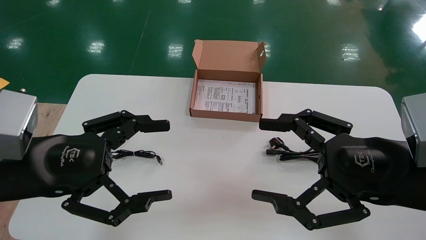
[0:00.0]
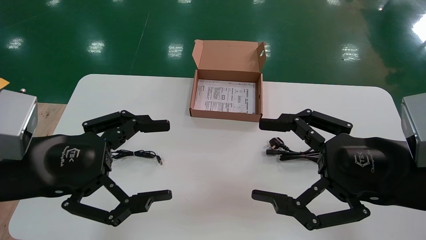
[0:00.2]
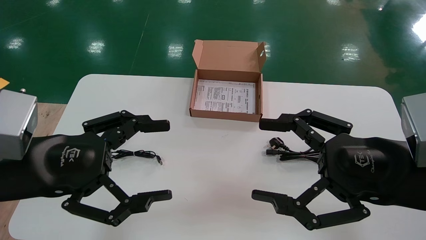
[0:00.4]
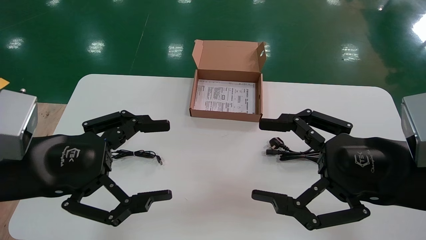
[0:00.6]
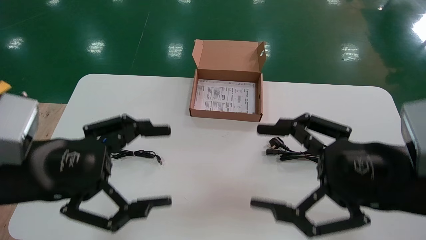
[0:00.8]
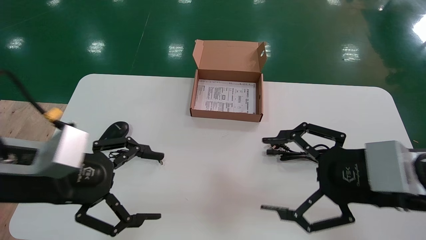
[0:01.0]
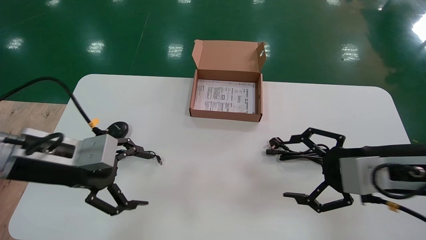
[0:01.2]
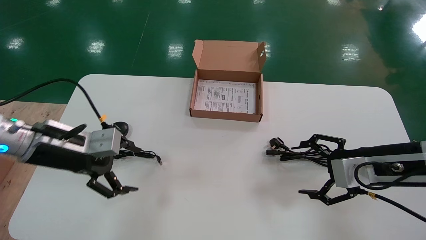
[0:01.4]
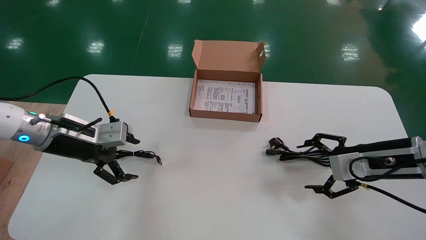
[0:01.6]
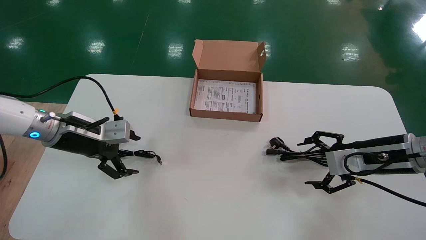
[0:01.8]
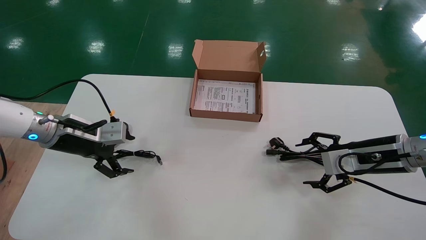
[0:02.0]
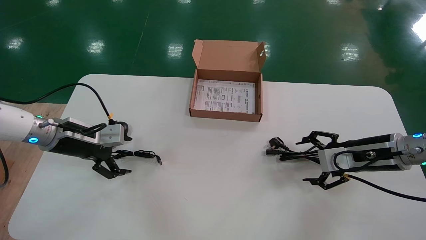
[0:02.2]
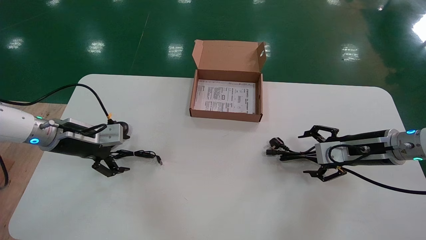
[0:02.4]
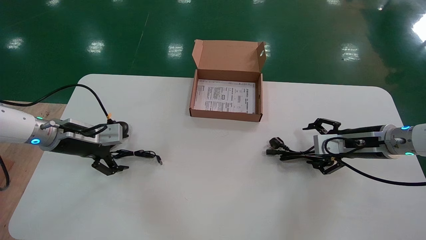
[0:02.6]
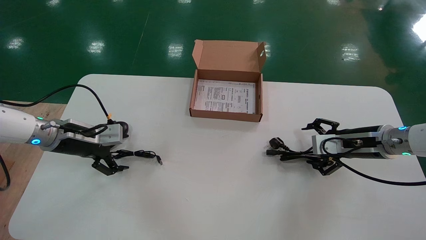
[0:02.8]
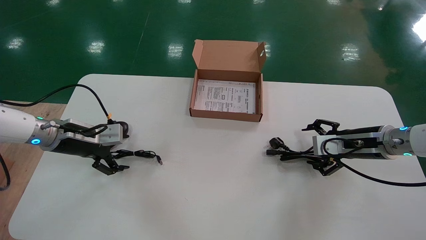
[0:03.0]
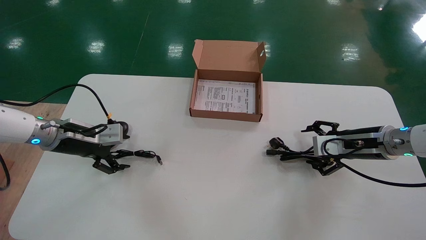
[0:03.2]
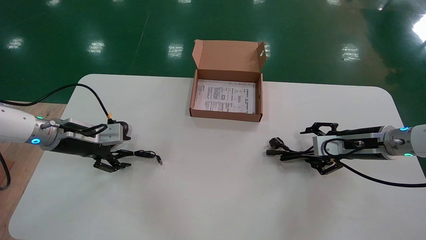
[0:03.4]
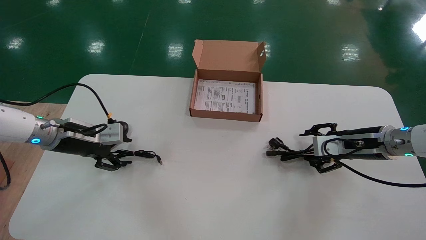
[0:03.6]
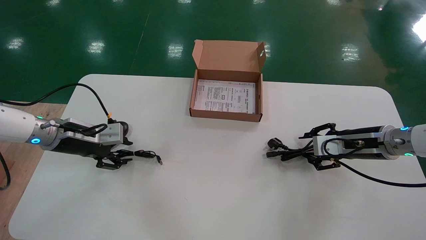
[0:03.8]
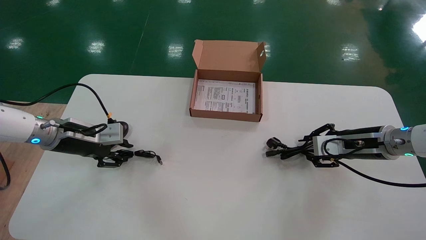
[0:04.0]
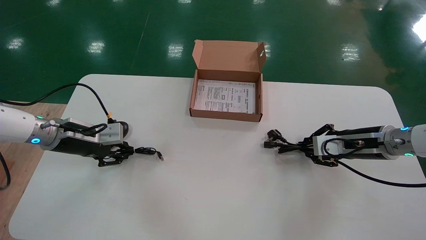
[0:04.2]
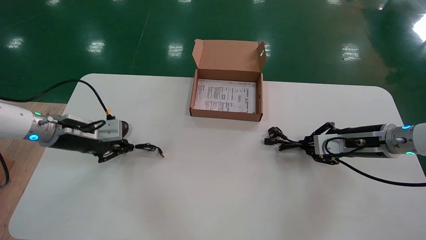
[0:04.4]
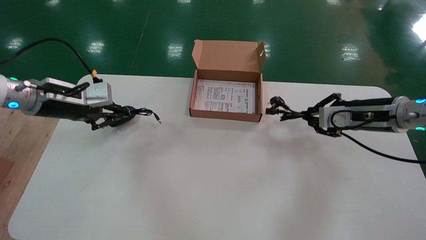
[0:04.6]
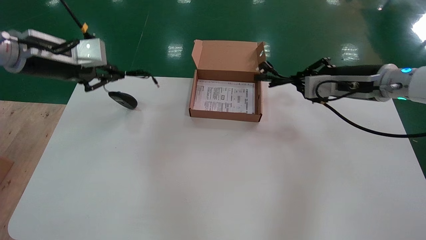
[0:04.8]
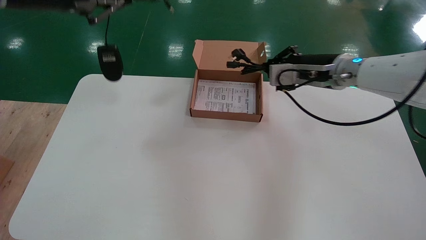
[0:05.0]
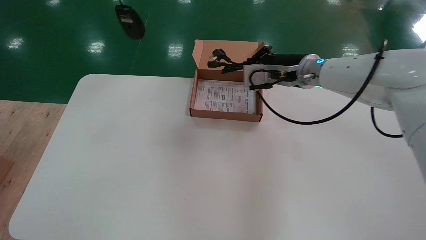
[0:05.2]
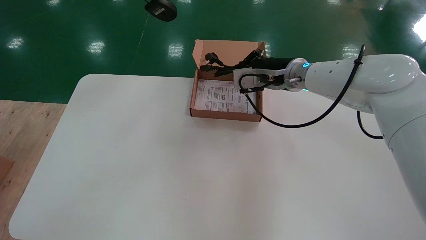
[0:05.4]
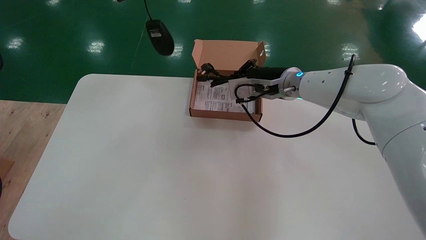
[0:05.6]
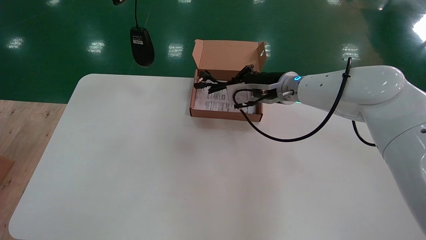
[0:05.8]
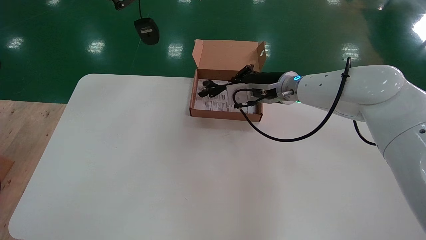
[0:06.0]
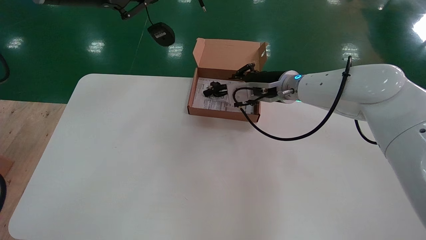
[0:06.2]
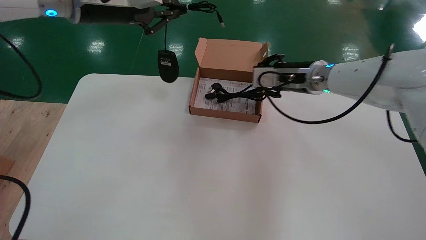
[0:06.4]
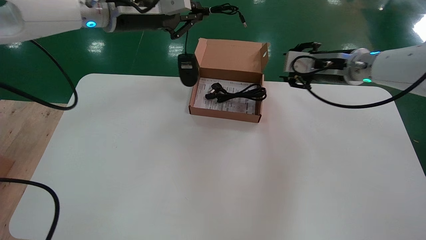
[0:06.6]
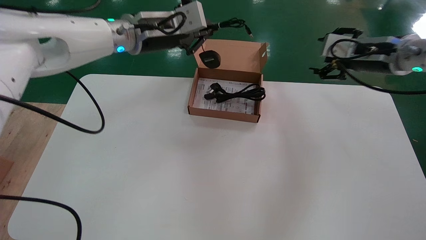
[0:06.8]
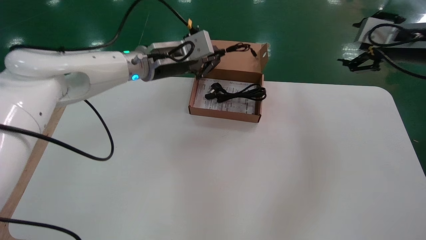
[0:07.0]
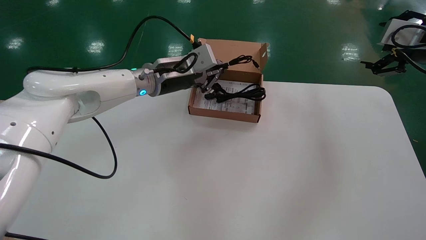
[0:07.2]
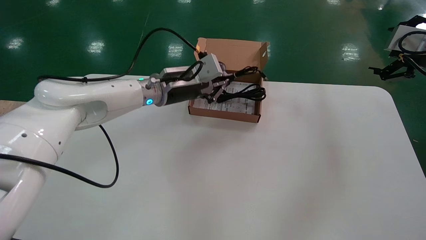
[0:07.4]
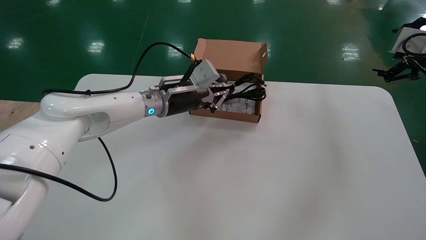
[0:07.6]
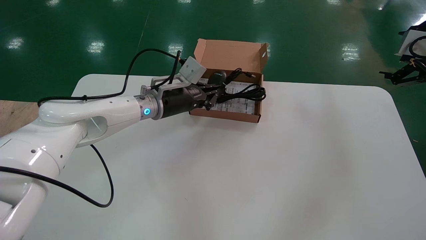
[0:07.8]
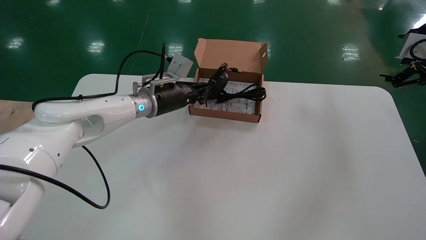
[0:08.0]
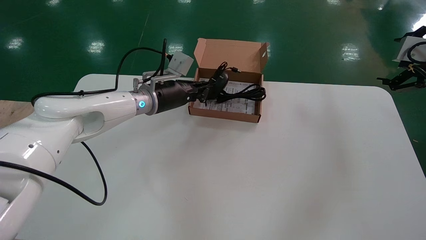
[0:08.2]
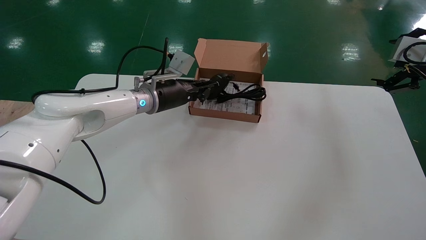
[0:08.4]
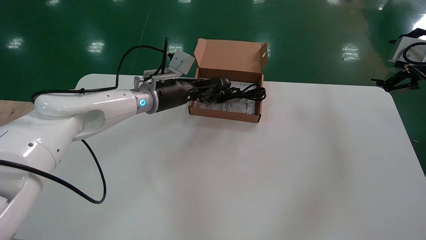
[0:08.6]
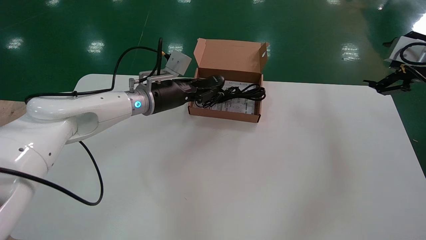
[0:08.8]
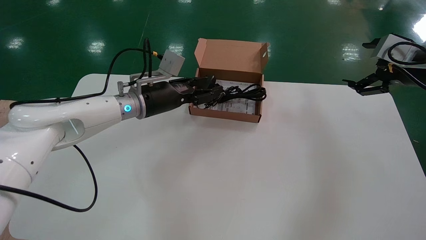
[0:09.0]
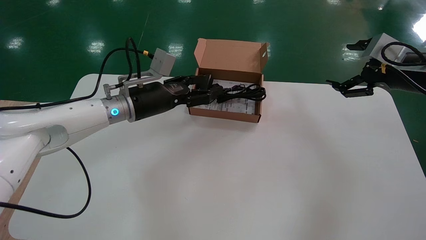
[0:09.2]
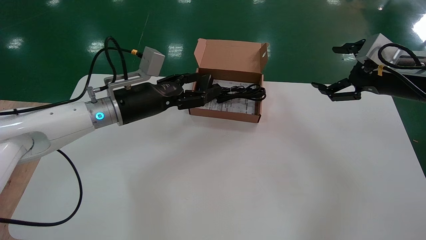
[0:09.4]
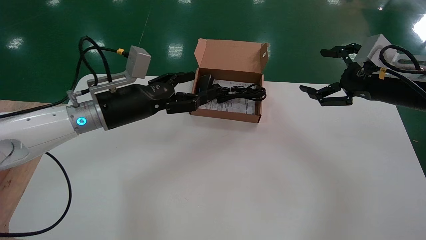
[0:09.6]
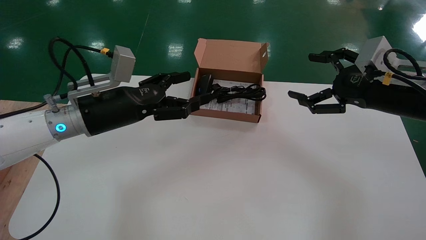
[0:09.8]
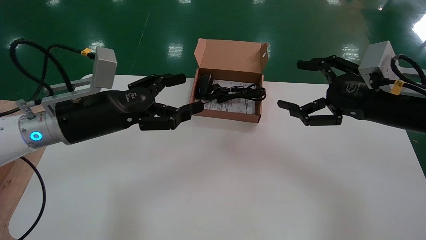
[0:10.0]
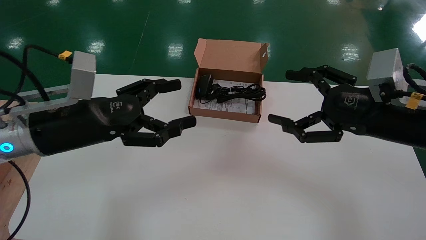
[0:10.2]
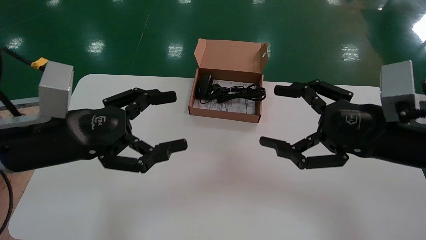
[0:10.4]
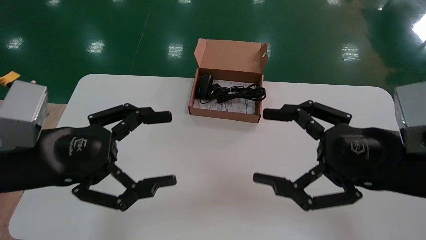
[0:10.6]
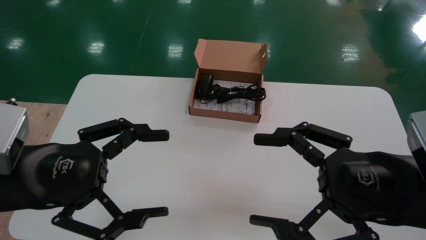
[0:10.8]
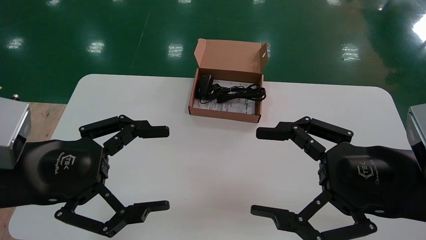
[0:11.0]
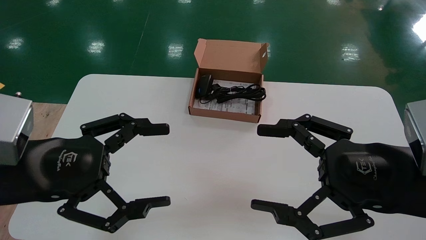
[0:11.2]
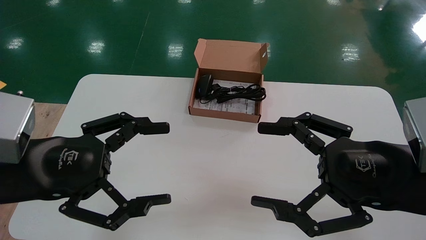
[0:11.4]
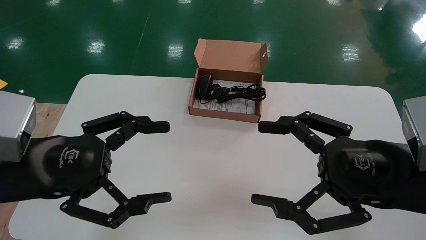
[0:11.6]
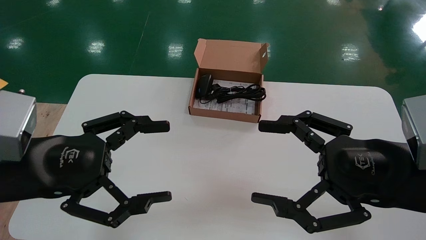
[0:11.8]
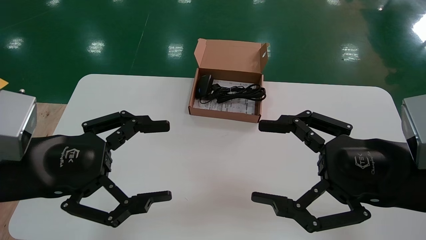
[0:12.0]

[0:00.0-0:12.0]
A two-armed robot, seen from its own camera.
Step, 0:01.2 to 0:04.4: Simultaneously pick up the mouse and power cord from the accessory packaging area.
Step, 0:04.6 to 0:09.0: Place the mouse and power cord into the box.
0:00.0 to 0:01.6: The left gripper travels forward by some 15 cm, while the right gripper is displaced forward, to the right and downward by some 15 cm.
0:01.6 to 0:03.0: The right gripper heads forward, covering roughly 10 cm. Meanwhile the left gripper changes place by roughly 5 cm.
0:03.0 to 0:04.4: The left gripper closes up; the right gripper closes its fingers.
0:04.4 to 0:06.0: The right gripper heads to the left, covering some 20 cm. The left gripper moves upward, some 25 cm.
0:06.0 to 0:07.6: The left gripper heads downward, to the right and forward, covering approximately 30 cm, while the right gripper goes some 30 cm to the right, and opens.
0:07.6 to 0:09.0: The left gripper opens.
0:09.0 to 0:10.4: The right gripper is displaced backward, to the left and downward by roughly 20 cm; the left gripper goes approximately 25 cm backward and to the left, and opens.
0:10.4 to 0:12.0: The right gripper ends up some 5 cm from where it was.

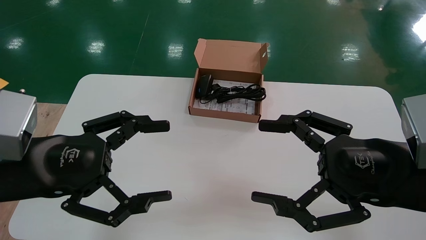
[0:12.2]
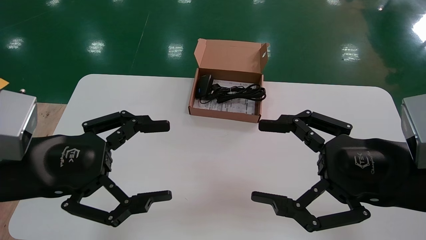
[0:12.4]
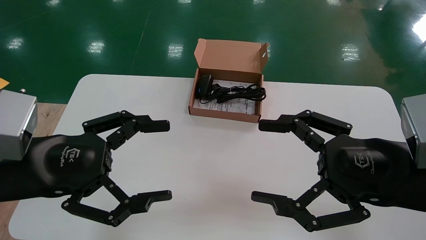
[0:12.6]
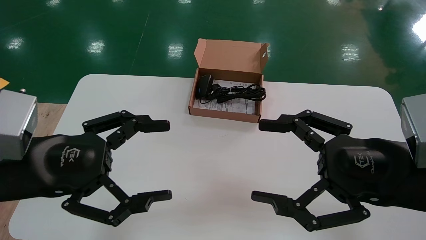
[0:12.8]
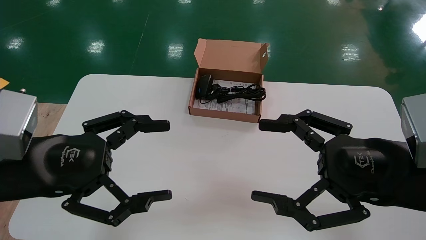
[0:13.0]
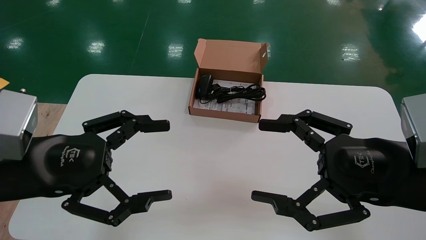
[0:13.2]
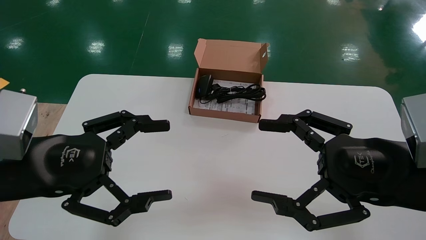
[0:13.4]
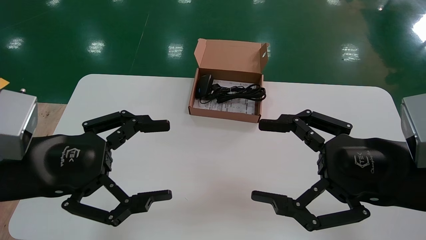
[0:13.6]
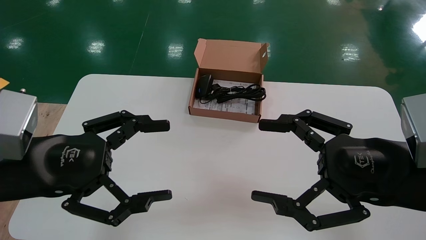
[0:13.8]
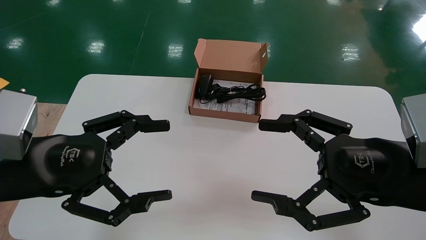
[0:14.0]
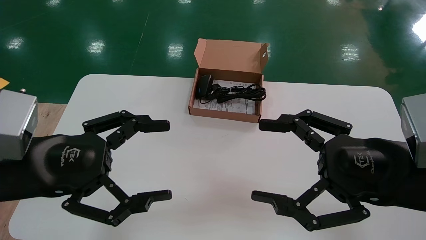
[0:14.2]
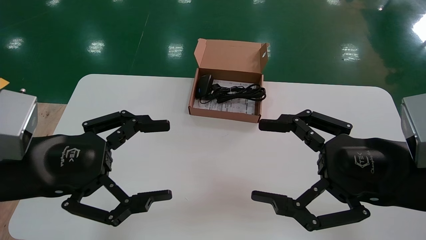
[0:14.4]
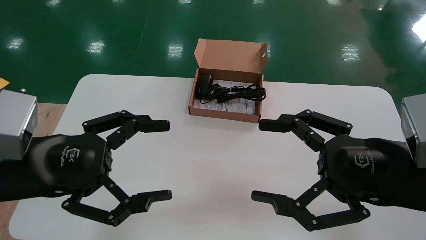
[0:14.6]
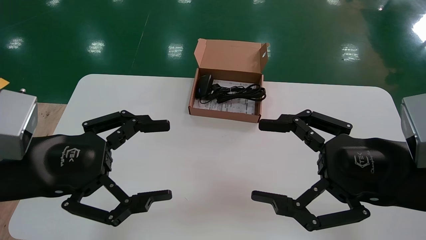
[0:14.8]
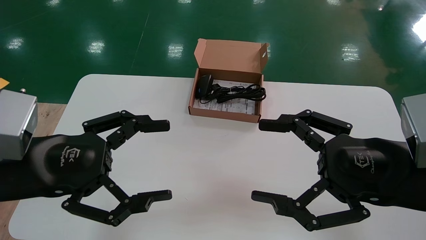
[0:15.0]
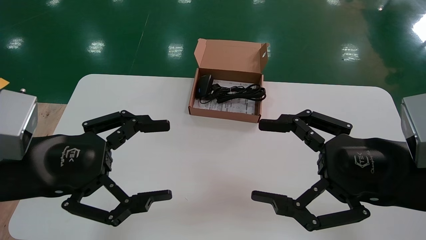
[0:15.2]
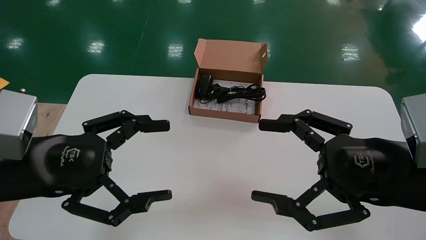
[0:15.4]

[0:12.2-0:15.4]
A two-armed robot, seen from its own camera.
0:12.2 to 0:15.4: Both grippers stay put.
